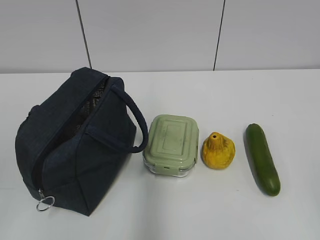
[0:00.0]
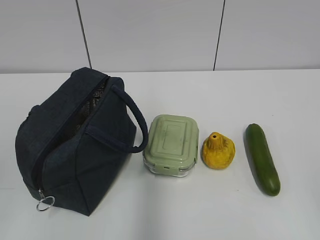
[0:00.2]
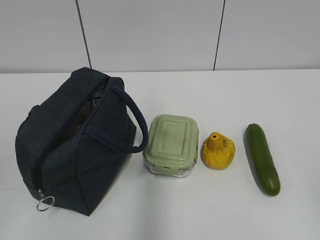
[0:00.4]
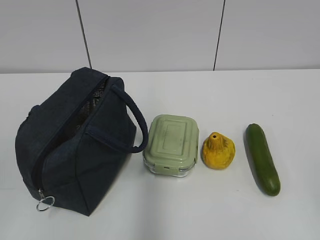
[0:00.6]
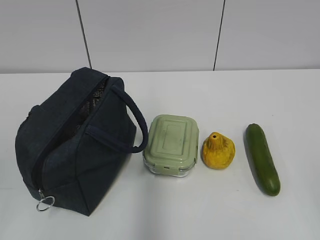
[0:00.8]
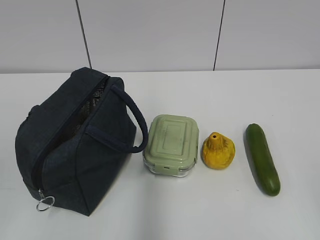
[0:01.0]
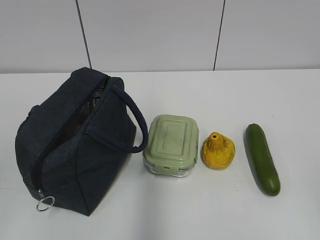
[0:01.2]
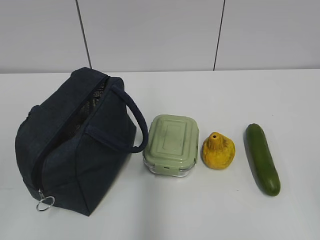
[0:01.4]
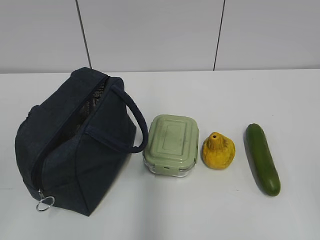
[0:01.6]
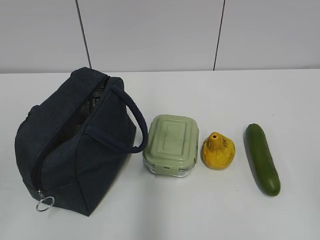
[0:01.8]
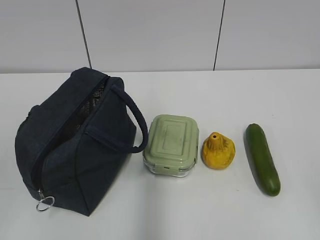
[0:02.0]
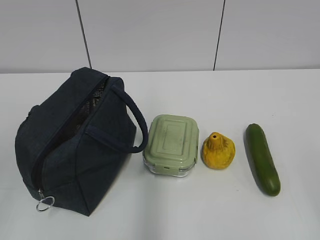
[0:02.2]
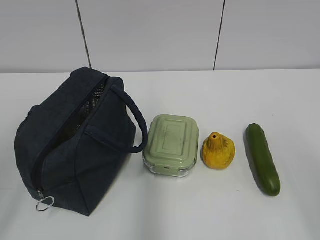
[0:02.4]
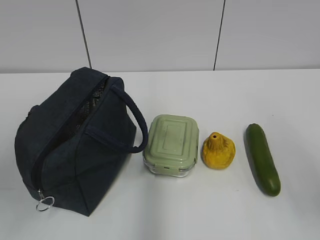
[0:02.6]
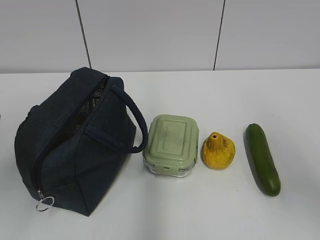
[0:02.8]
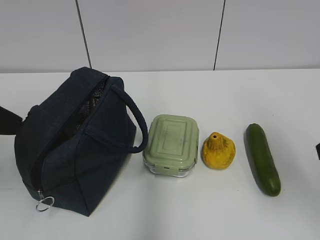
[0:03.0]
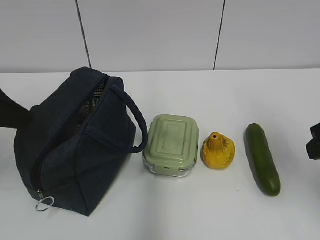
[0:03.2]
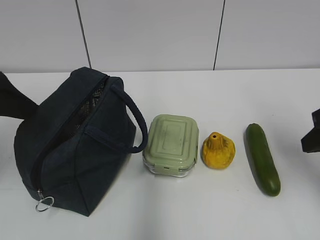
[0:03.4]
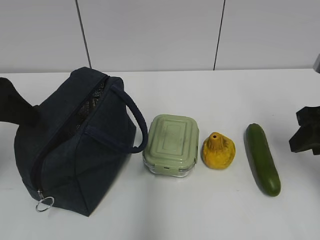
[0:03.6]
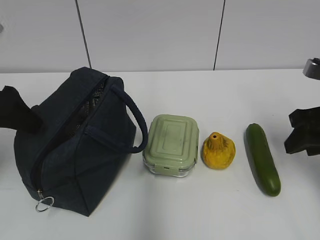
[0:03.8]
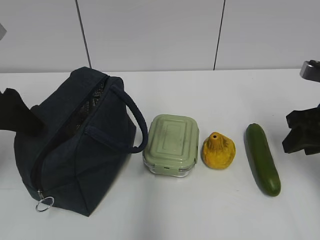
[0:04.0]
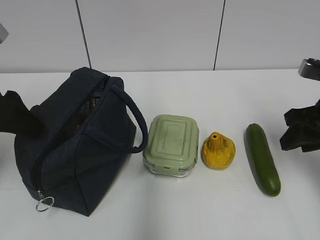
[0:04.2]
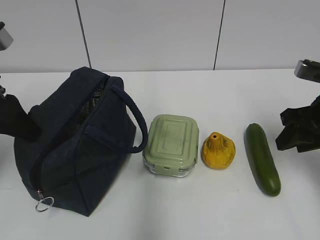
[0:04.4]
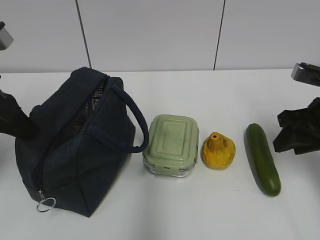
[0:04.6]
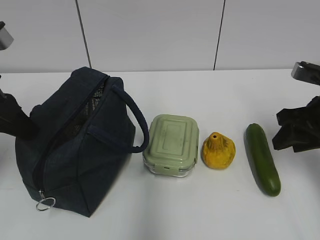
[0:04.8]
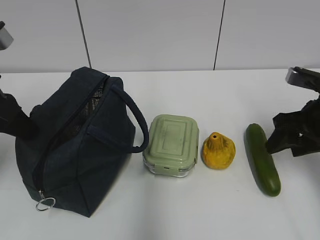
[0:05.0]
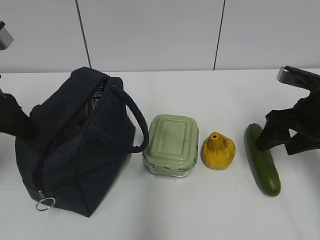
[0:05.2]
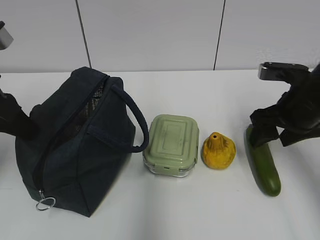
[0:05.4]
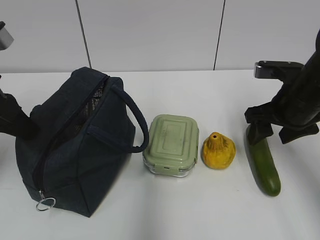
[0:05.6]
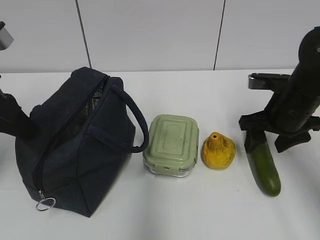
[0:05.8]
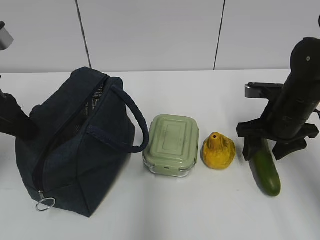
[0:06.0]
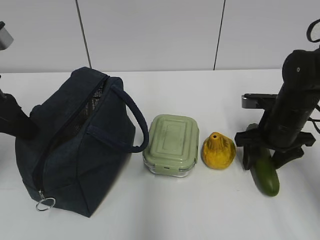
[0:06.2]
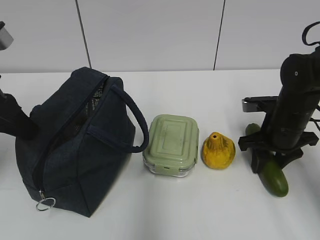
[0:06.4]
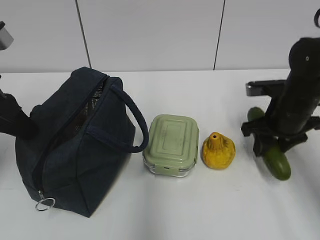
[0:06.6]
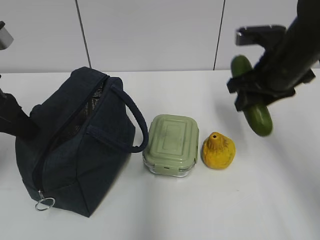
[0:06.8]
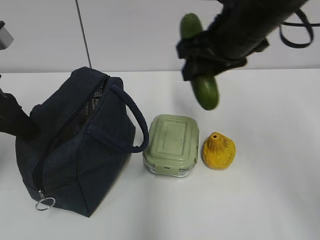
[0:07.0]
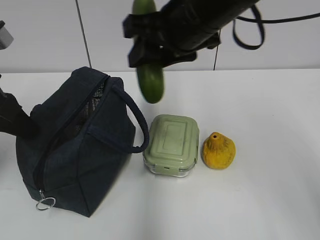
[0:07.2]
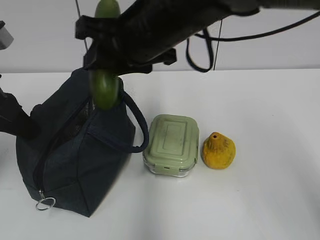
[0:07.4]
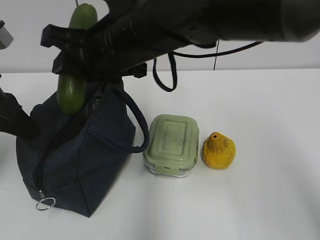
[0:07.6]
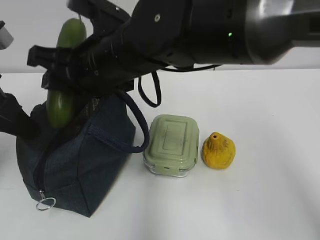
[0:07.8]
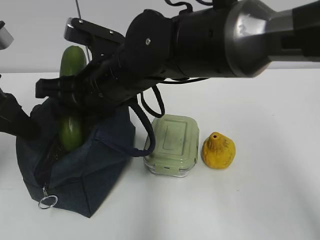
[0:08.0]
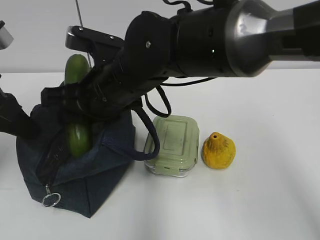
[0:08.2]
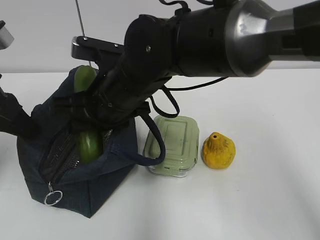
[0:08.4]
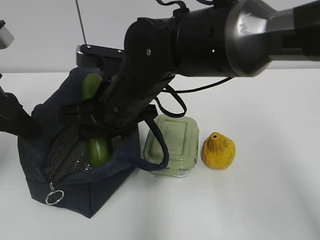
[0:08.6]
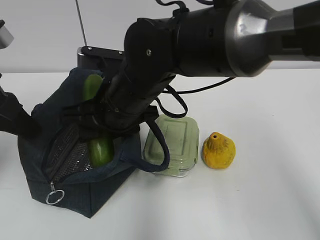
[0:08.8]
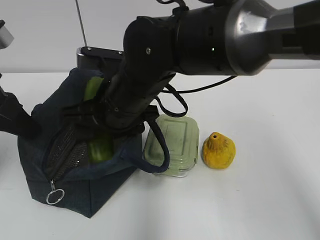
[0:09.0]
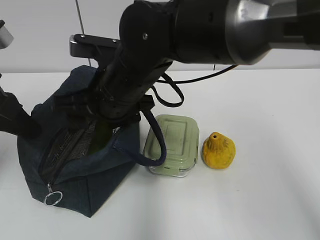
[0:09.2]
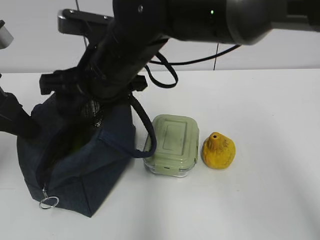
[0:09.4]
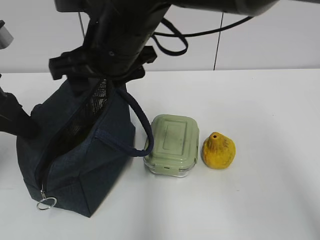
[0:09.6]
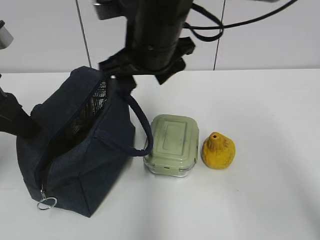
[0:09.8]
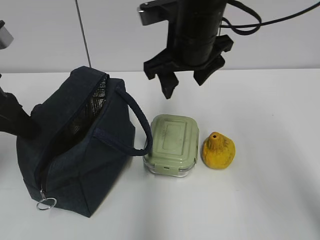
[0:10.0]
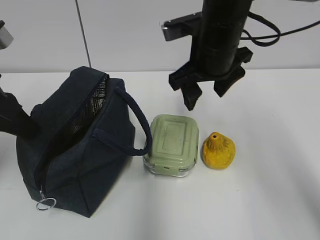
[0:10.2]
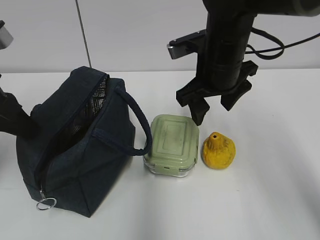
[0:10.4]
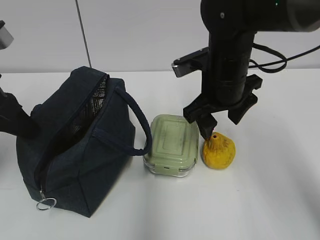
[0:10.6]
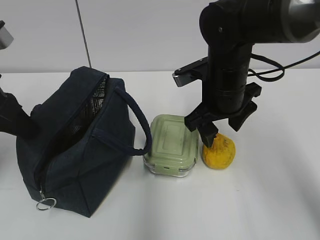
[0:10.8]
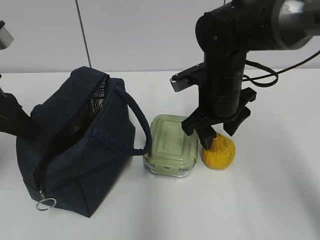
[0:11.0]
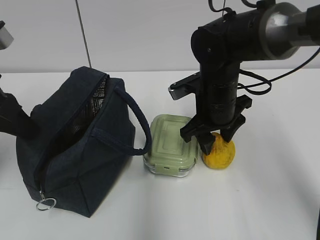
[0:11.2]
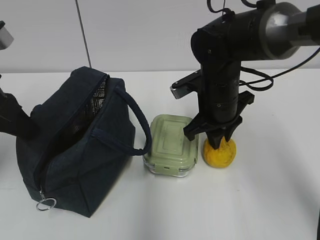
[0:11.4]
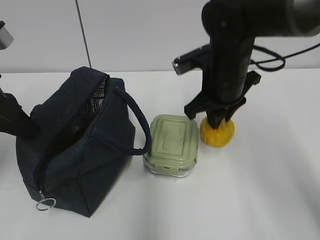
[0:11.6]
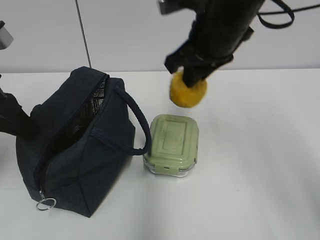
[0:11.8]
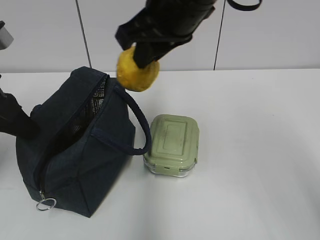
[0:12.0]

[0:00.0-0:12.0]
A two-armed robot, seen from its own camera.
Step, 0:00.0 to 0:03.6: Grab the lunch bag with your left hand.
Step, 0:03.8 to 0:06.4: Grab the cucumber with your right hand.
Step, 0:06.6 to 0:09.2: Place it into the bag with your right hand.
Step, 0:09.4 to 0:11.4: Grab the pear with your right hand.
0:01.6 to 0:03.0: The grippers both shift forward by about 20 cm. The left gripper opens its fingers.
0:03.0 to 0:04.4: The left gripper goes roughly 5 cm forward, and closes; the right gripper shifts approximately 15 cm forward and downward.
0:04.4 to 0:06.0: The right gripper heads forward and downward, covering approximately 10 cm; the left gripper closes.
0:06.0 to 0:07.6: The right gripper heads to the left and upward, covering approximately 30 cm.
0:07.6 to 0:09.0: The right gripper heads downward, covering some 5 cm.
0:09.0 to 0:10.4: The right gripper shifts some 15 cm to the right.
0:10.4 to 0:12.0: The right gripper travels upward and to the left by approximately 10 cm, and closes its fingers.

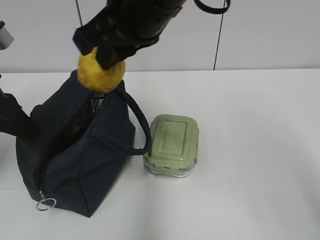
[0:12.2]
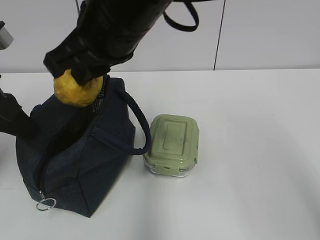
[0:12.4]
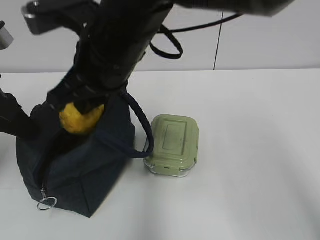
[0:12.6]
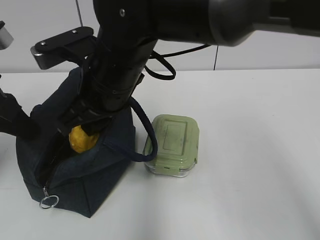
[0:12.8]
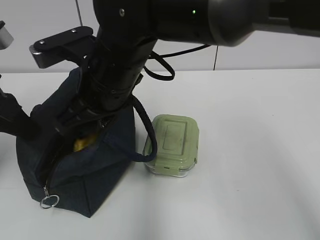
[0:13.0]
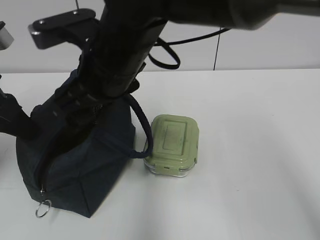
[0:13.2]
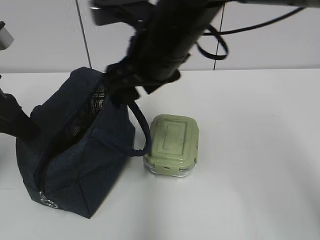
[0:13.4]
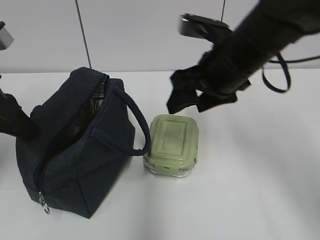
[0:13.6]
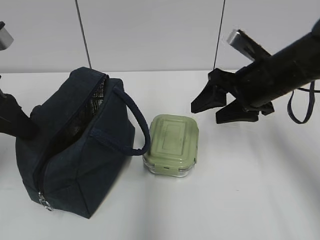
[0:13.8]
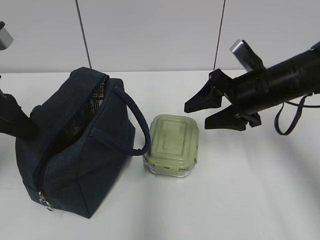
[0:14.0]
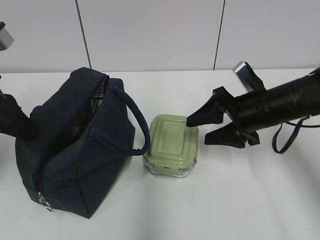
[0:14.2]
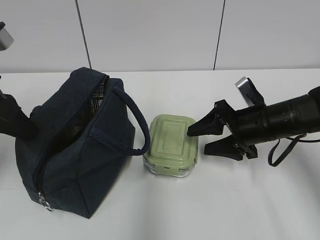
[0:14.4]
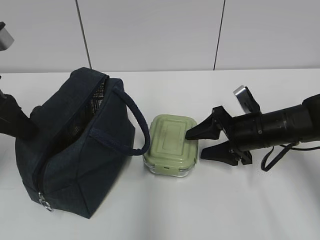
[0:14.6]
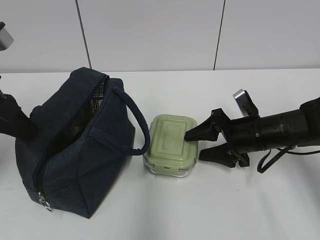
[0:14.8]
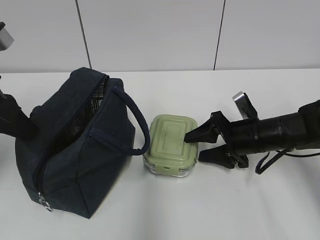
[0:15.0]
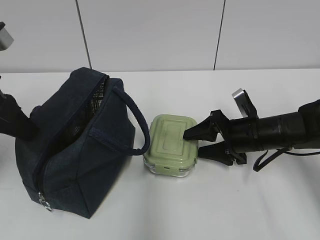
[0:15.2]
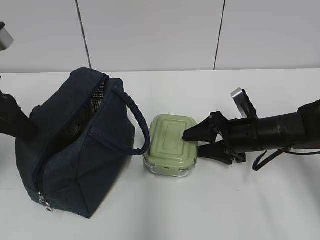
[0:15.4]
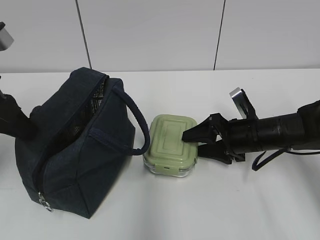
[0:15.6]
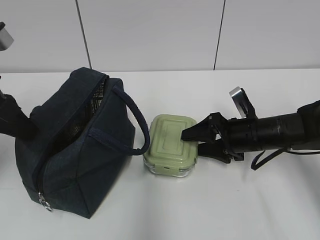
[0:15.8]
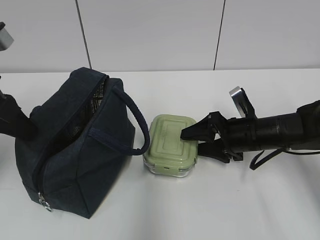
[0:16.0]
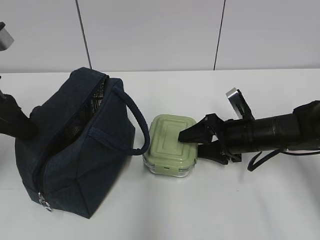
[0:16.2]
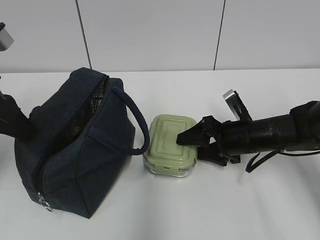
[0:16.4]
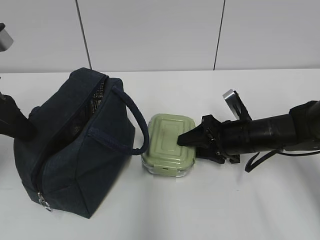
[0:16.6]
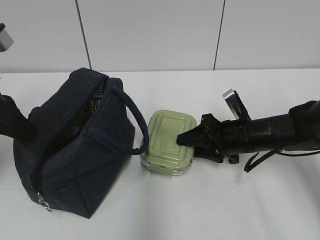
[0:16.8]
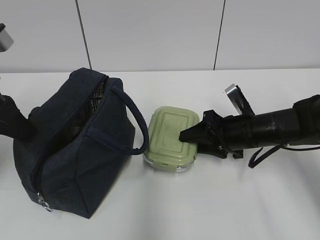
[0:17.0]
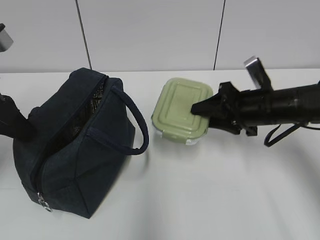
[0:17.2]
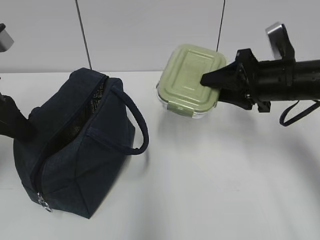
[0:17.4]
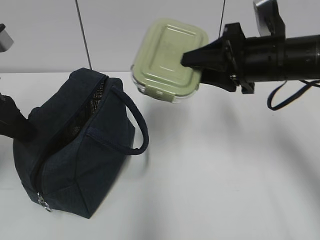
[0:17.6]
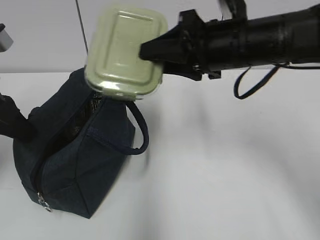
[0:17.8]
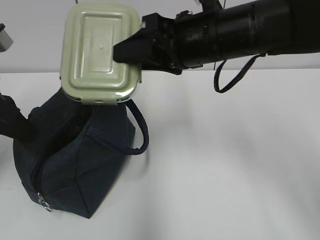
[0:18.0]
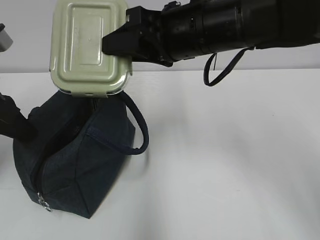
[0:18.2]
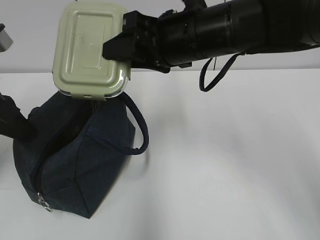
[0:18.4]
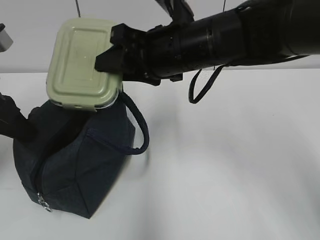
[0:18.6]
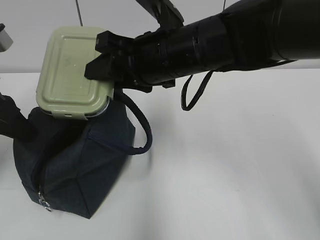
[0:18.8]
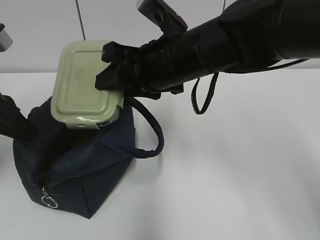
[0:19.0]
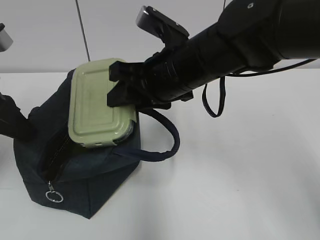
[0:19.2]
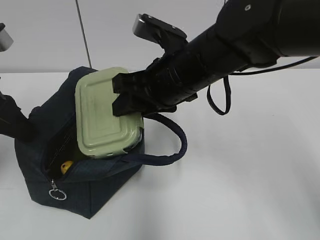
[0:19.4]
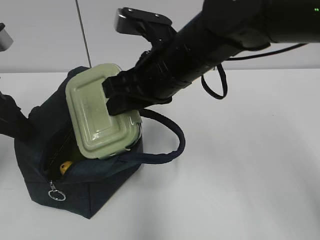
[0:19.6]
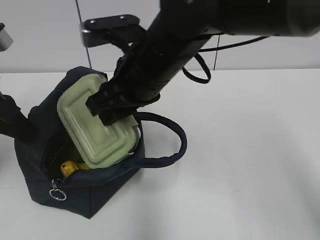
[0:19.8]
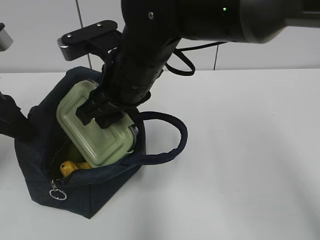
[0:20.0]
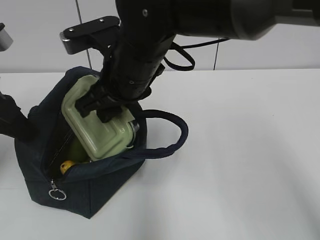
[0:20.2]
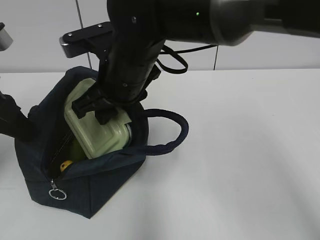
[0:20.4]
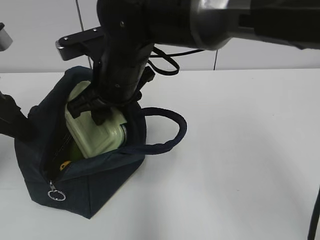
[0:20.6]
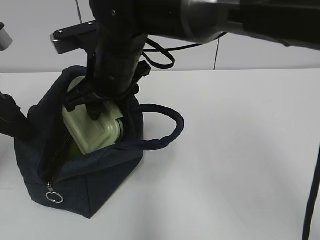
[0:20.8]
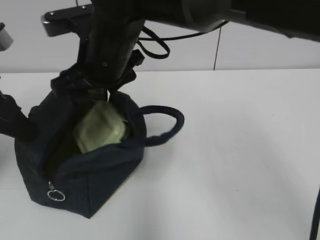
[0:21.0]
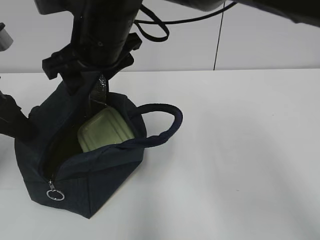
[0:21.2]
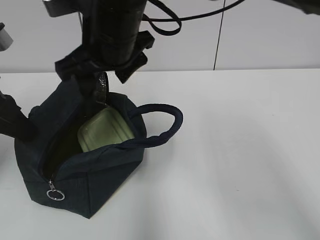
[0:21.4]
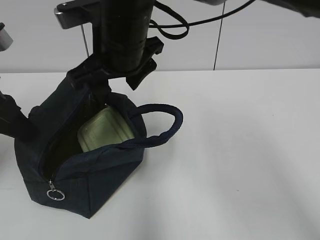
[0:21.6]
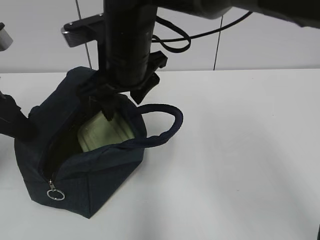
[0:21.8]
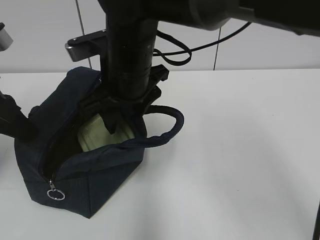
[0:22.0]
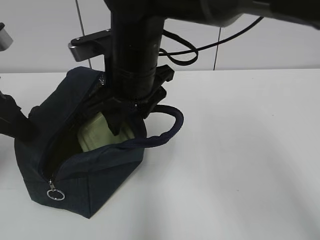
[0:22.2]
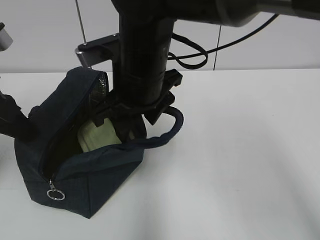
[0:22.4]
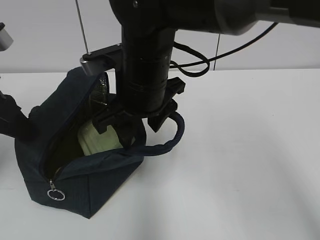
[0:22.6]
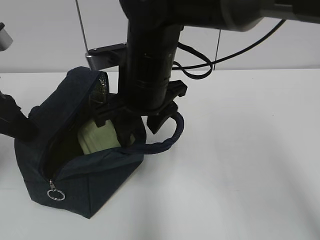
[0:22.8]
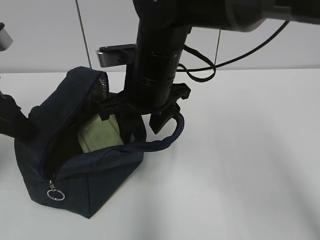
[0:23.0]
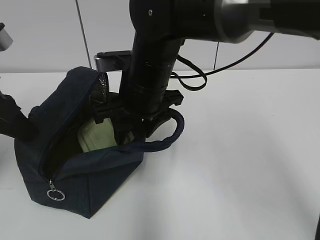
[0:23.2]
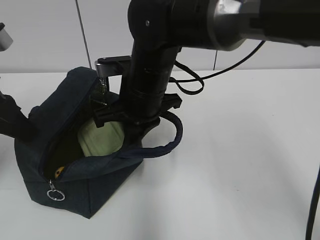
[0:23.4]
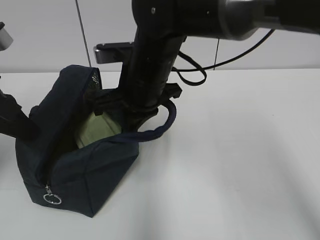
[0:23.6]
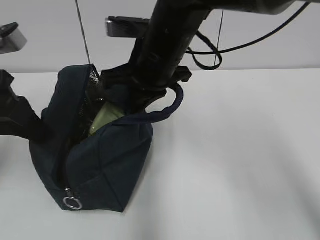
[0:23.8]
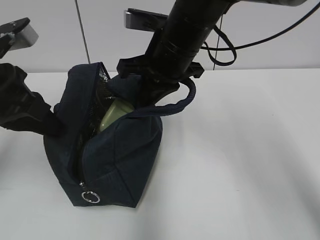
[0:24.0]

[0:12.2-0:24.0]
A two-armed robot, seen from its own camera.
Step, 0:12.2 to 0:13.0: Place it into the bag with your right hand.
Step, 0:13.2 to 0:16.8: Grab the lunch box with your right hand.
Step, 0:21.2 to 0:23.2: Grab the lunch bag with your right hand.
0:12.2 to 0:13.6: The right gripper is displaced to the right and downward by approximately 15 cm, and opens its fingers.
0:13.6 to 0:15.2: The right gripper heads downward and to the right, covering some 20 cm.
0:15.2 to 0:16.6: The grippers stay close to where they were, moving slightly.
0:16.6 to 0:18.2: The right gripper moves upward and to the left, about 25 cm.
0:18.2 to 0:19.6: The right gripper ends up about 5 cm from where it was.
0:19.6 to 0:21.0: The right gripper moves to the left, some 10 cm, and opens up.
0:21.0 to 0:22.6: The right gripper ends up some 5 cm from where it was.
0:22.6 to 0:24.0: The right gripper shifts about 5 cm to the right, and closes its fingers.
